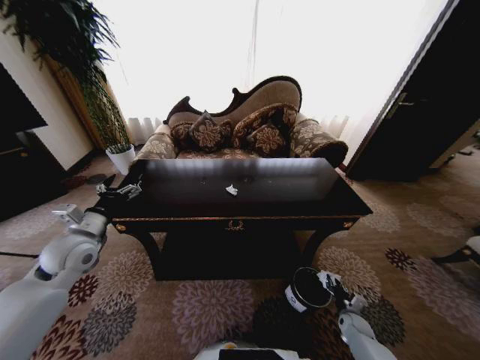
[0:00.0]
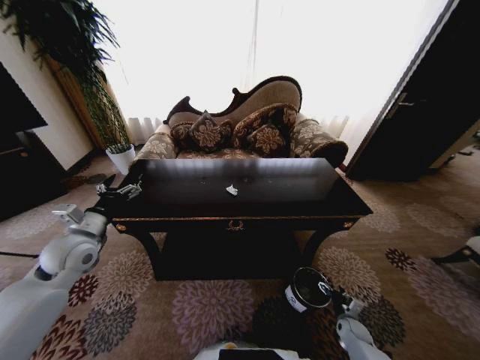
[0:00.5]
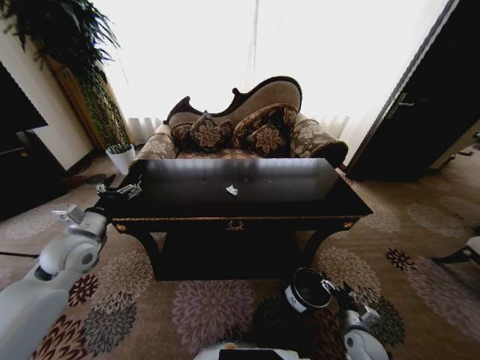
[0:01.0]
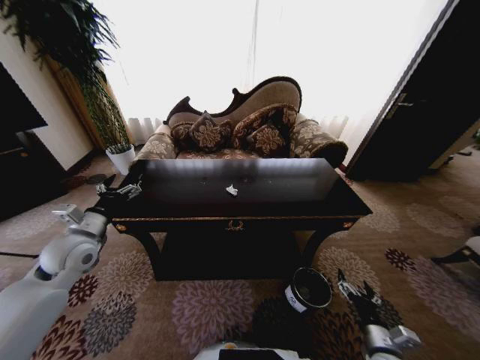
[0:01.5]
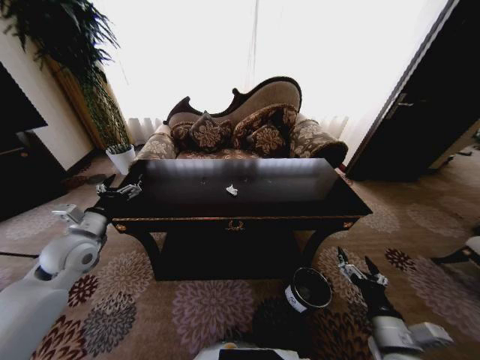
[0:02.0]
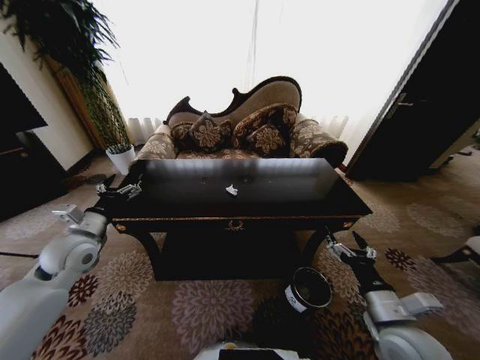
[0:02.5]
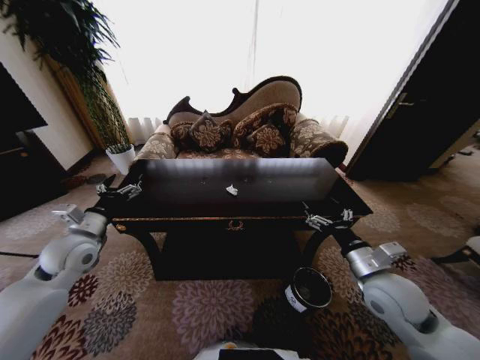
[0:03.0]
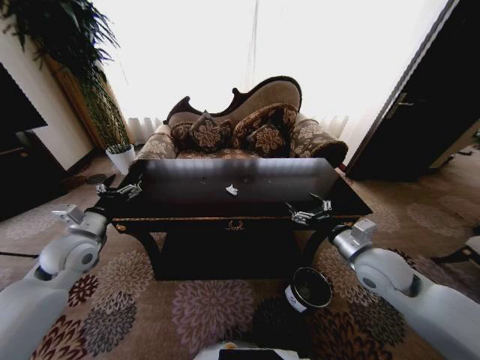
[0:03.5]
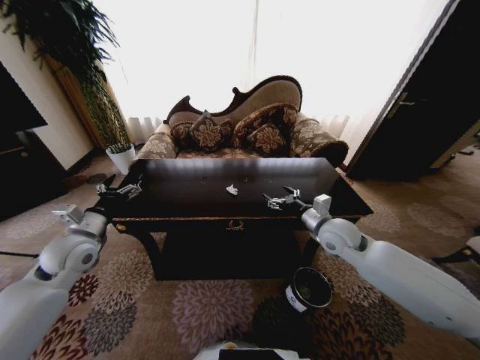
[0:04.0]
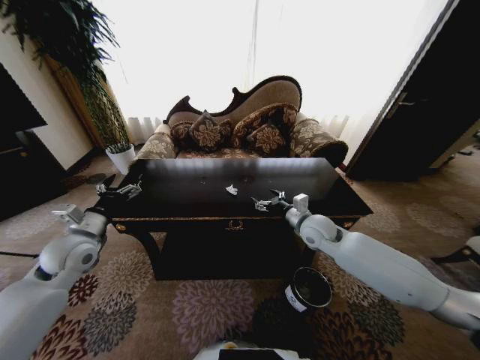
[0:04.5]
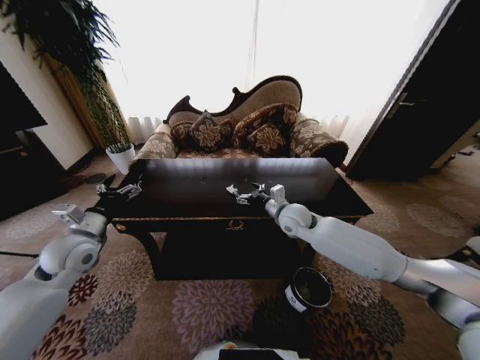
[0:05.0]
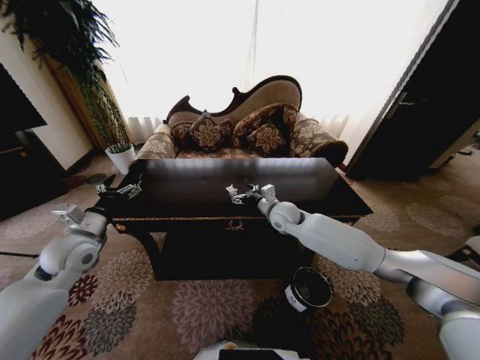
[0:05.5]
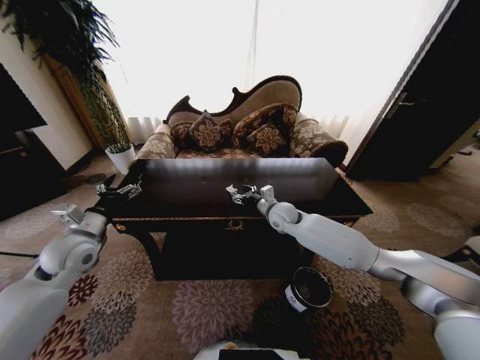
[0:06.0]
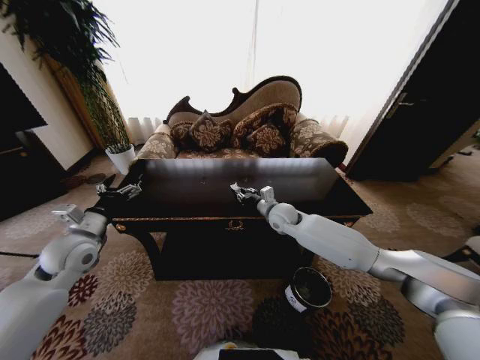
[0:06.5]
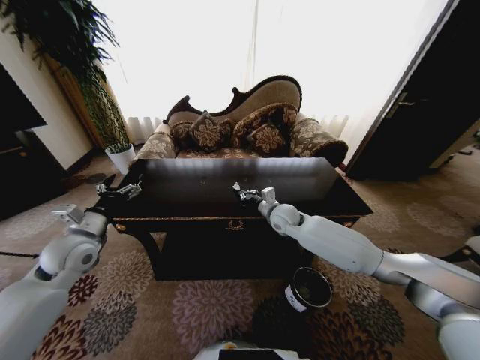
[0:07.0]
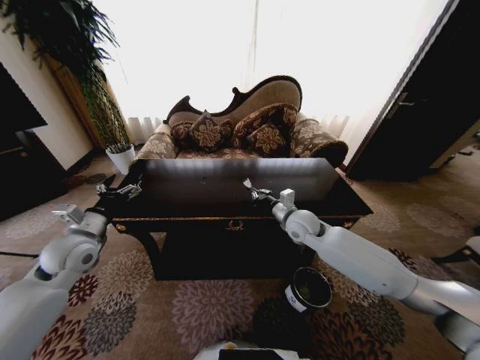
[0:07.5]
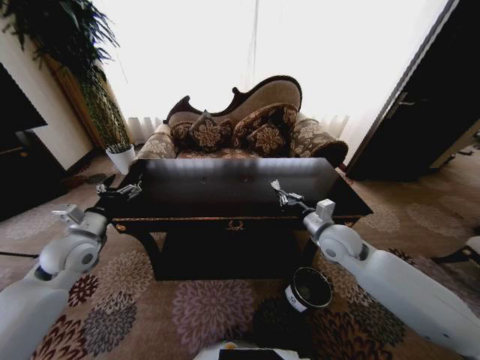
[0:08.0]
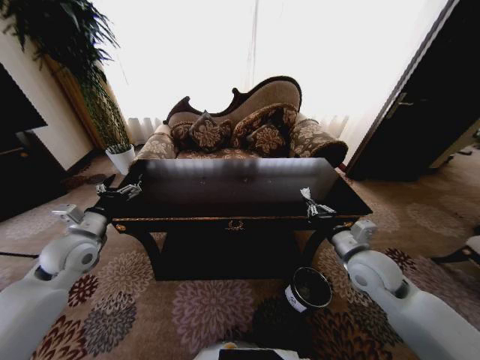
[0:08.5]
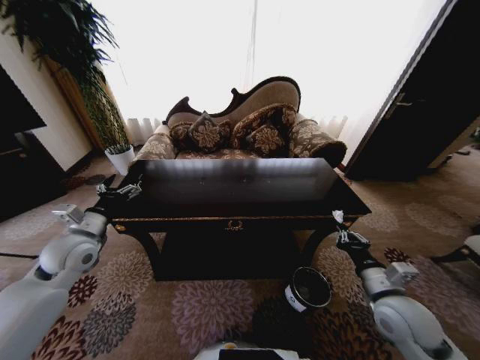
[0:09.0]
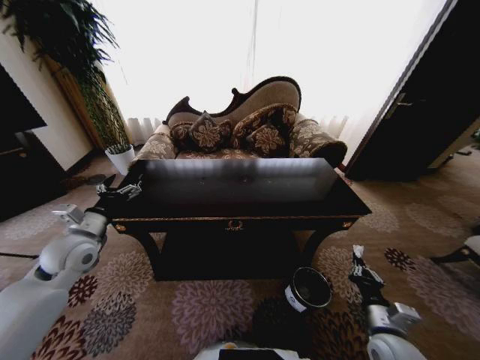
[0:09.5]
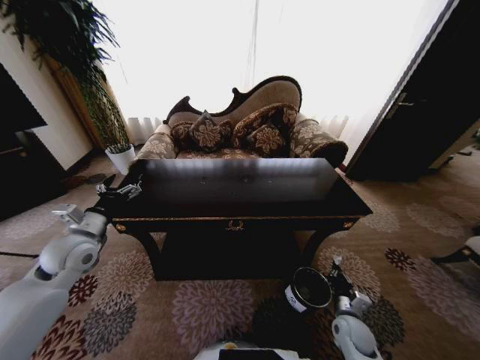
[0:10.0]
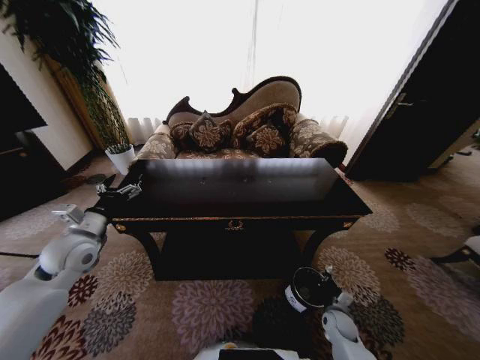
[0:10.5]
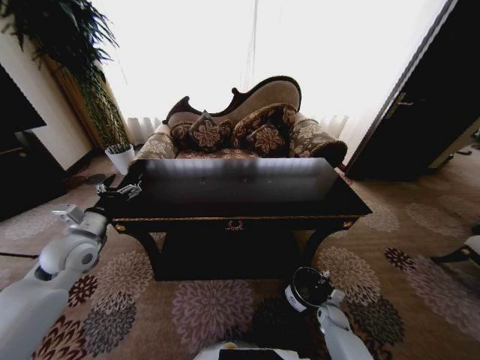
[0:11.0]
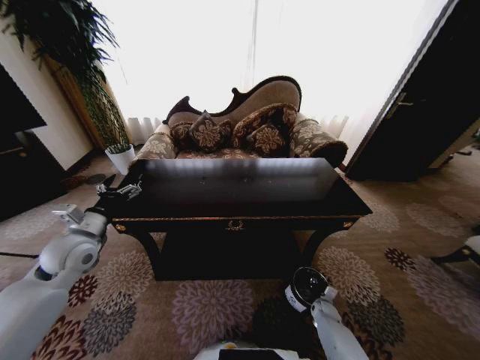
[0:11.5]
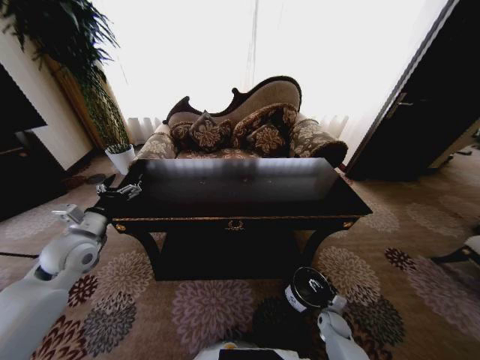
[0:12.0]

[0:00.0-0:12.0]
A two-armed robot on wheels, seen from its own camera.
Task of the whole recording: Move to the front of the table and place the trash on the table into the trash bin.
0.0 to 2.0 s: The right gripper moves upward, backward and to the left, approximately 35 cm, and opens its fingers.
2.0 to 4.0 s: The right gripper moves forward and upward, some 30 cm.
4.0 to 6.0 s: The right gripper moves forward and to the left, approximately 15 cm.
6.0 to 8.0 s: The right gripper goes some 15 cm backward and to the right, and closes up.
8.0 to 10.0 s: The right gripper moves downward and backward, roughly 30 cm.
10.0 to 12.0 s: The right gripper moves downward, about 15 cm, and opens up.

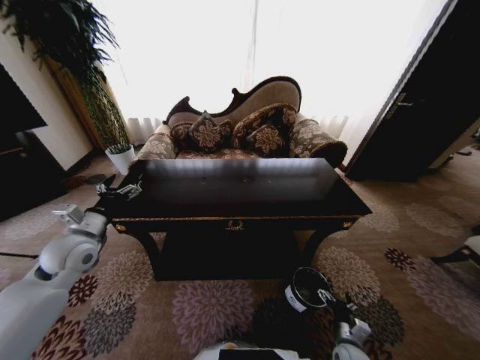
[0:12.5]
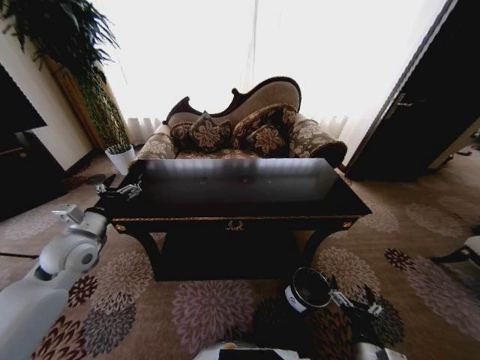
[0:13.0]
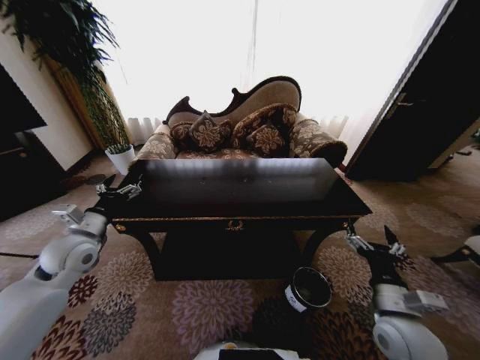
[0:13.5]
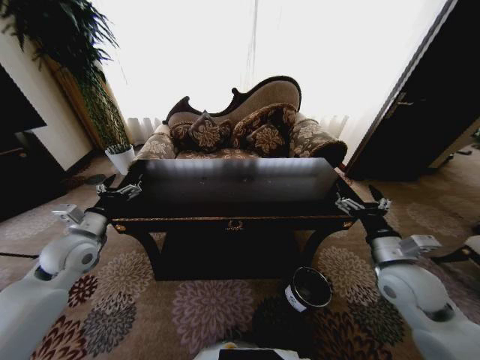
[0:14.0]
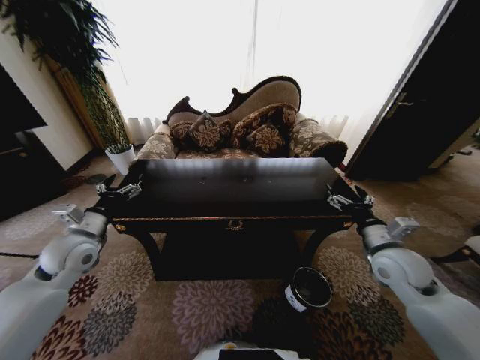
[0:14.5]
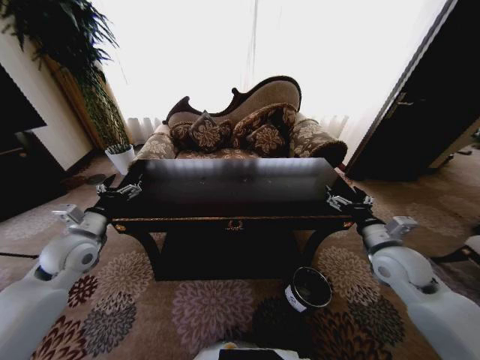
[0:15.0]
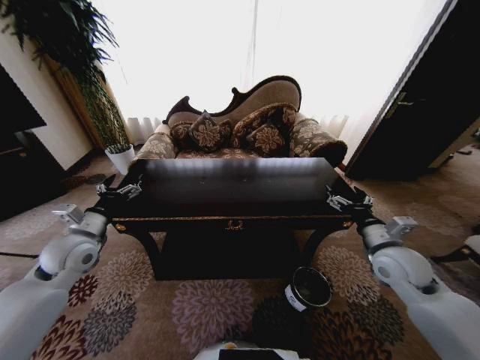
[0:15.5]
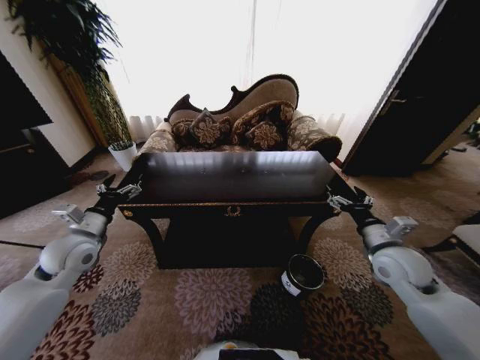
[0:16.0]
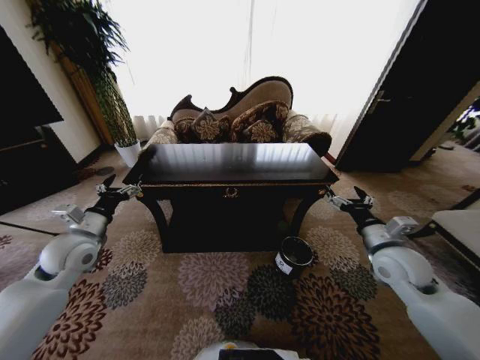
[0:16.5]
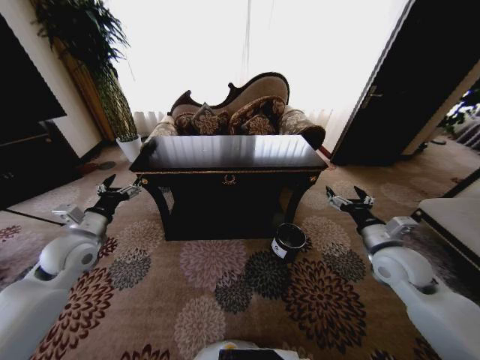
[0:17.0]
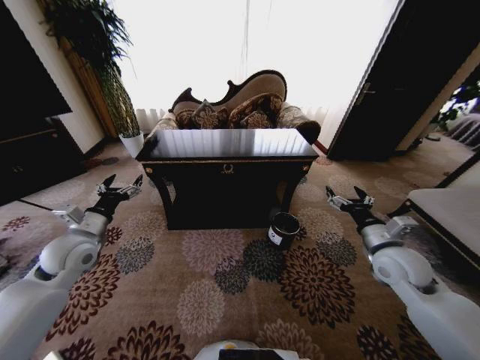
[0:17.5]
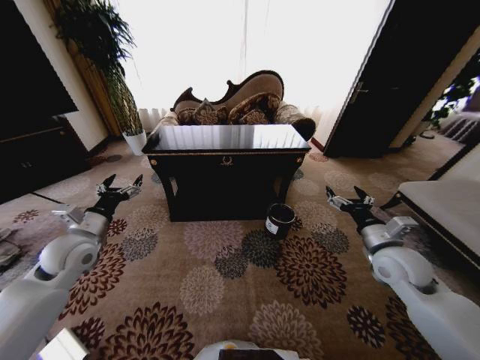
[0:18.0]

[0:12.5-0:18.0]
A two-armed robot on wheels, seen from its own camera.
Task of the whole recording: Move to the front of the table and place the trash on the table into the trash bin.
12.5 to 14.5 s: The right gripper heads upward and forward, covering some 35 cm.
14.5 to 16.0 s: Both grippers stay about where they are.

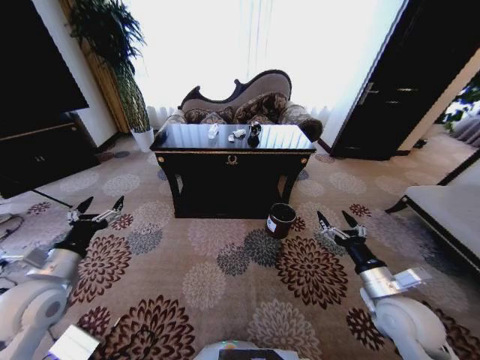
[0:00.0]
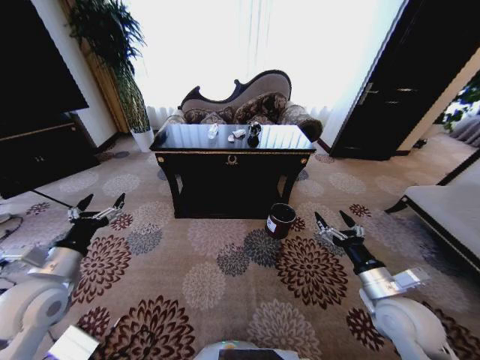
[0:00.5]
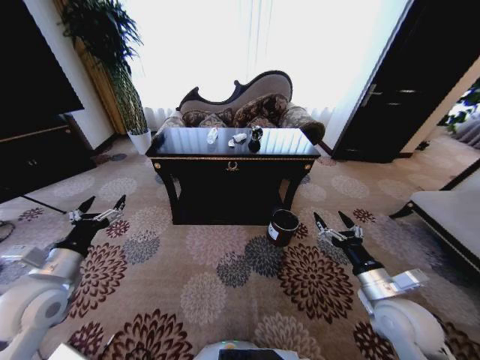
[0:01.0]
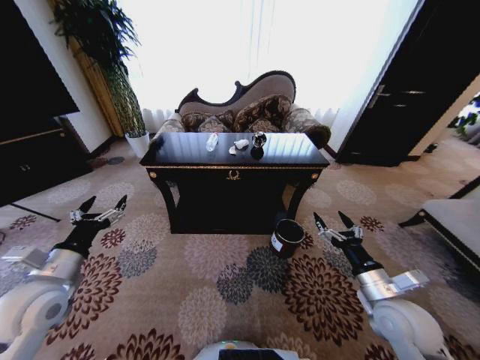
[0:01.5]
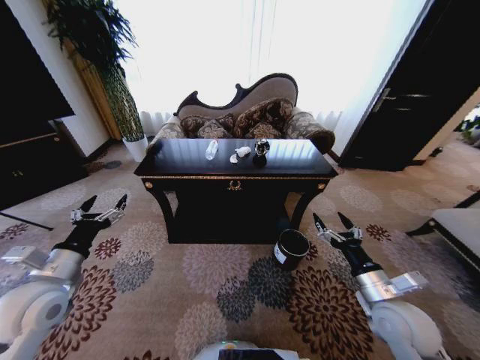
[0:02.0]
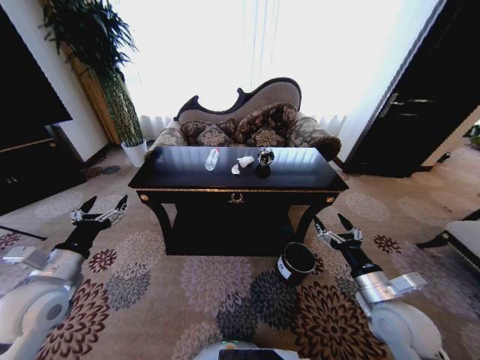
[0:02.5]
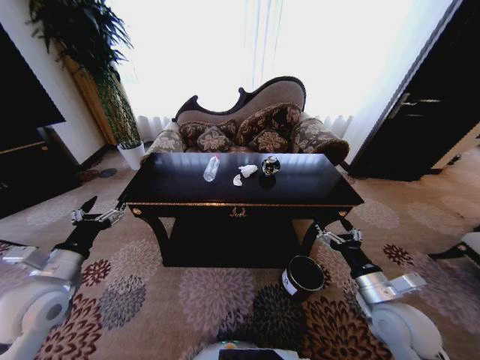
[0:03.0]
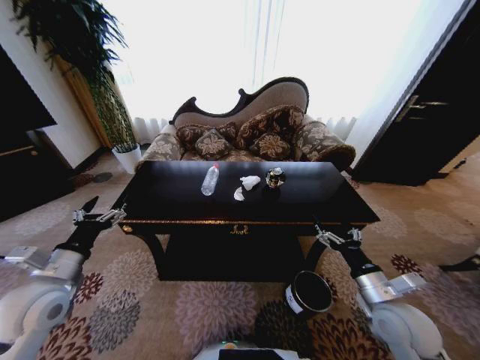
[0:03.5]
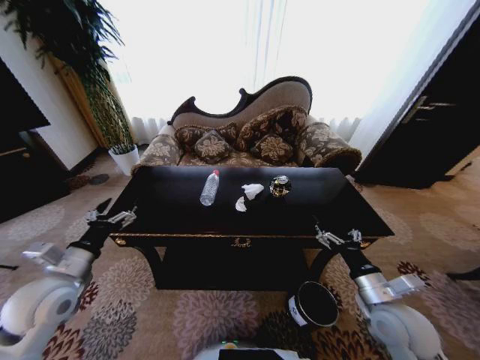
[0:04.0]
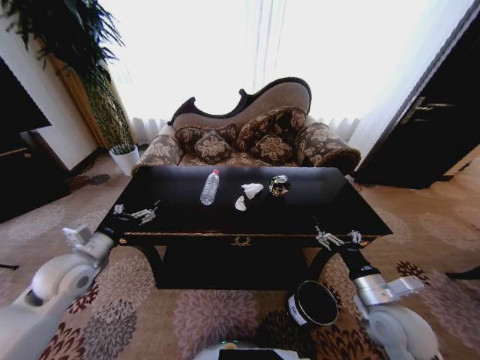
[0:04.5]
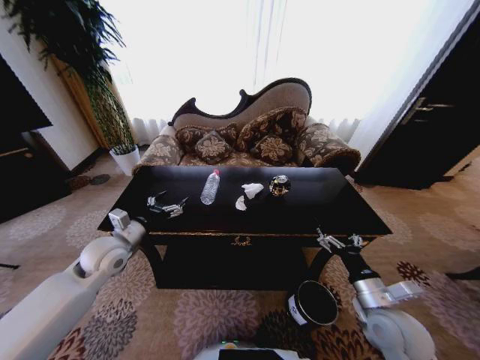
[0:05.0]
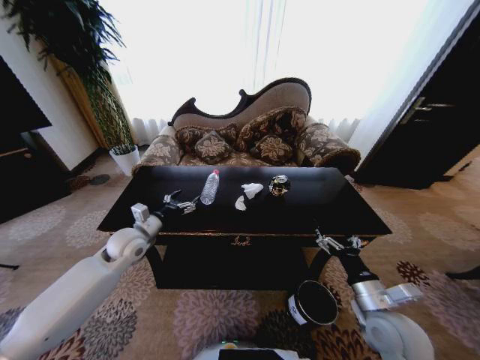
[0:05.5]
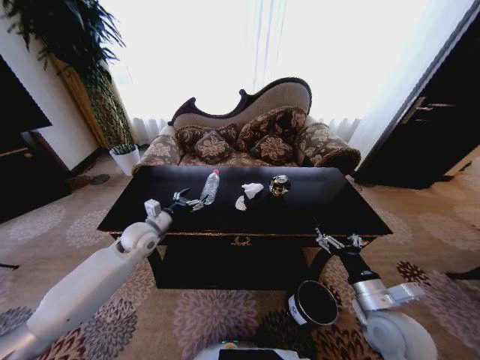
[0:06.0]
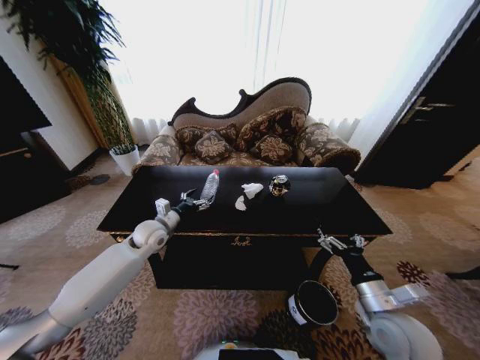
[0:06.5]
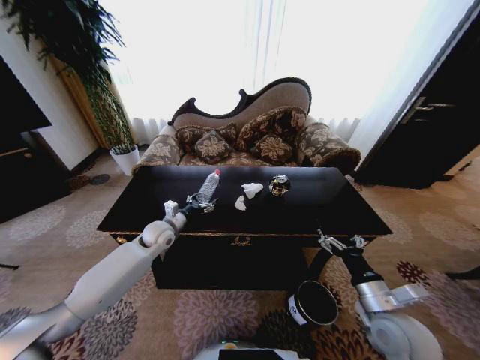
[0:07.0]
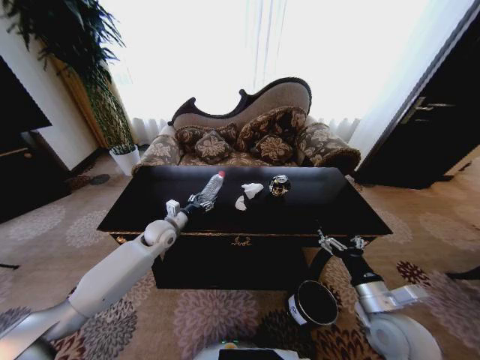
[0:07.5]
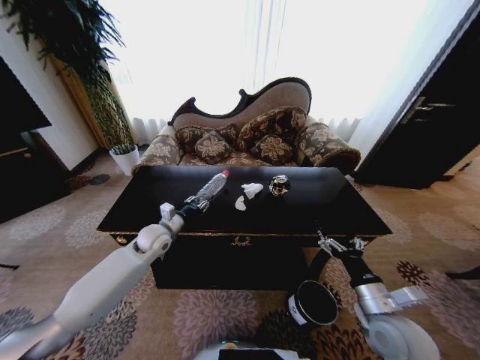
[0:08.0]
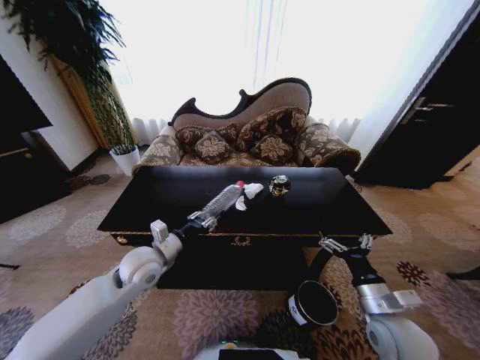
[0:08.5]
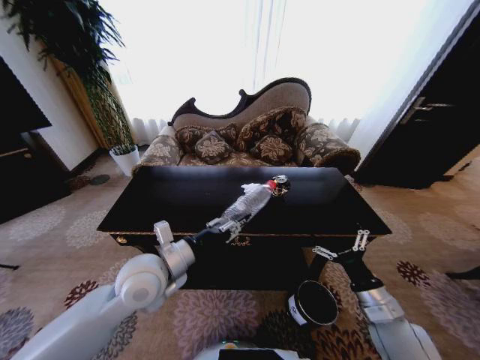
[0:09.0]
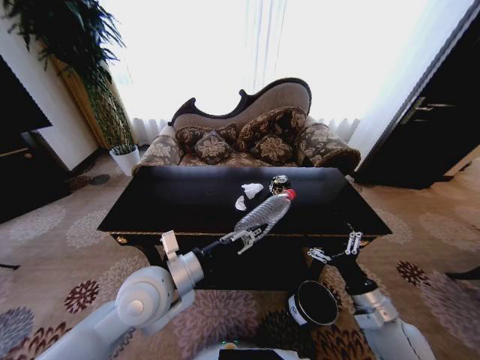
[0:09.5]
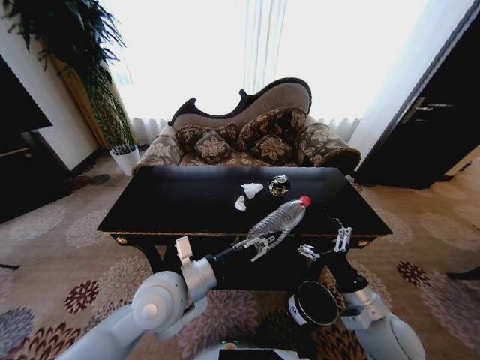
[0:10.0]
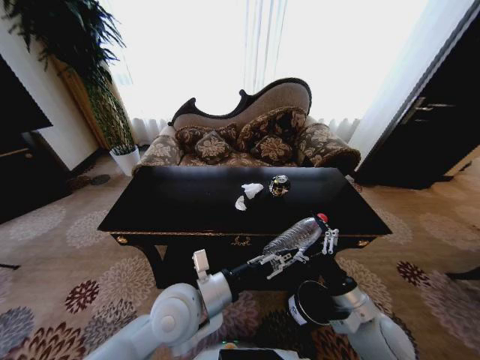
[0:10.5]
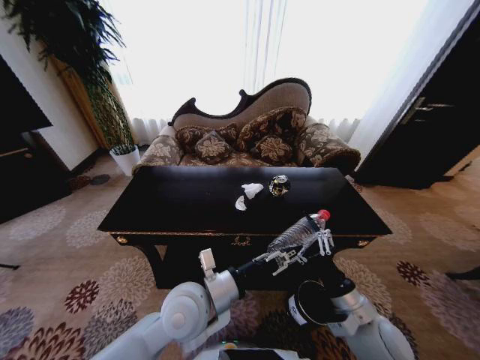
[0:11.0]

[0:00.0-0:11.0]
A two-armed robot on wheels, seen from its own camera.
Task of the whole recording: Move to the front of the table and place the trash on the table into the trash bin.
3.5 to 5.5 s: The left gripper goes approximately 20 cm forward and to the right.
5.5 to 7.5 s: The left gripper travels forward and to the right by about 10 cm.
7.5 to 9.0 s: The left gripper goes about 20 cm backward and upward, and closes.
9.0 to 11.0 s: The left gripper travels to the right by roughly 10 cm; the right gripper travels to the left by about 5 cm.
